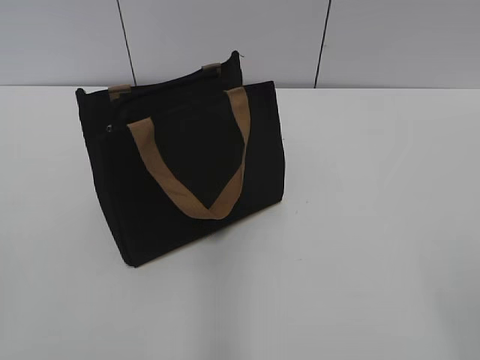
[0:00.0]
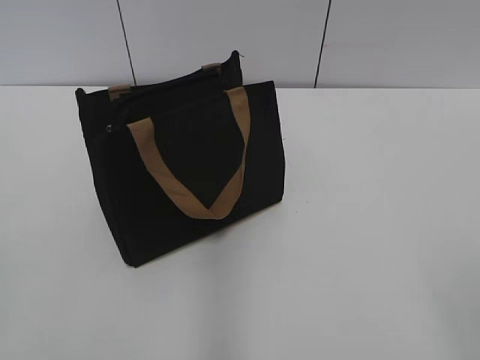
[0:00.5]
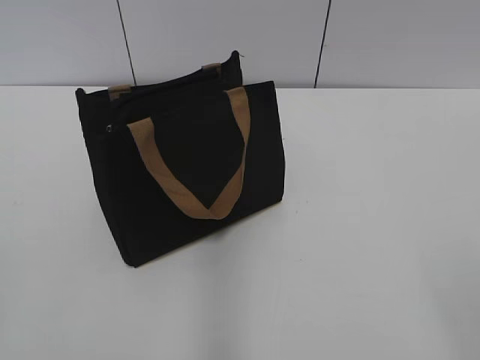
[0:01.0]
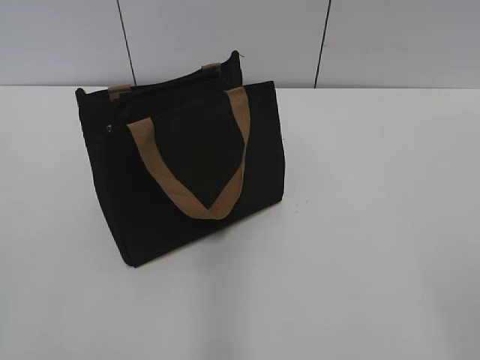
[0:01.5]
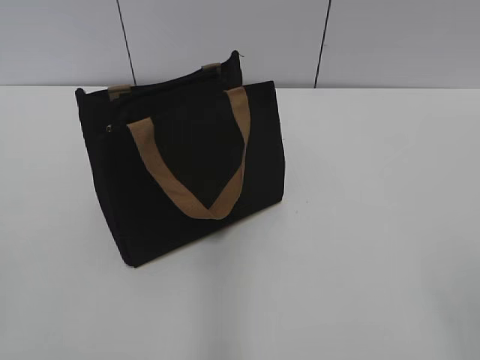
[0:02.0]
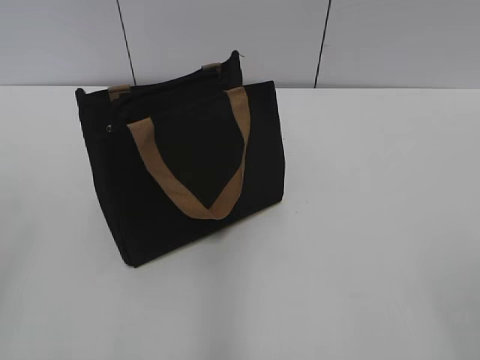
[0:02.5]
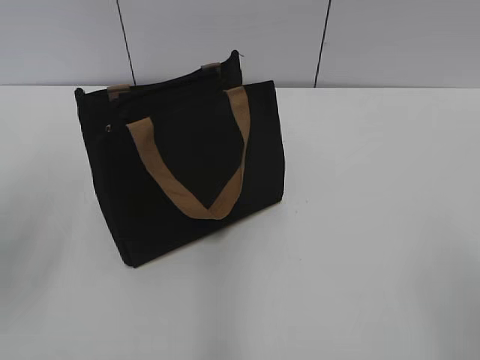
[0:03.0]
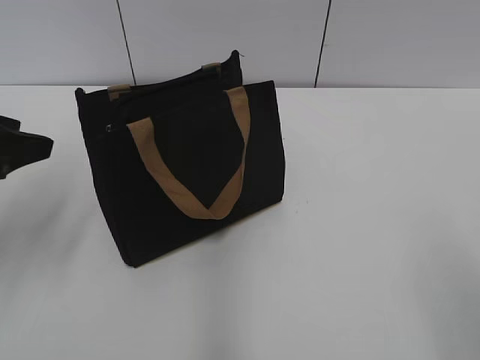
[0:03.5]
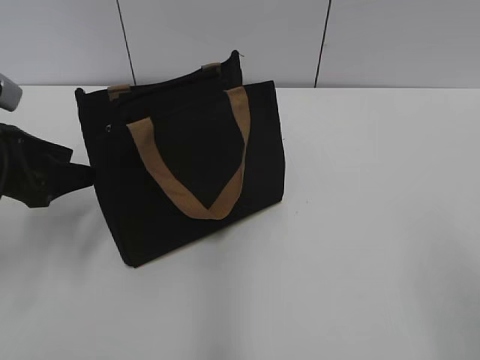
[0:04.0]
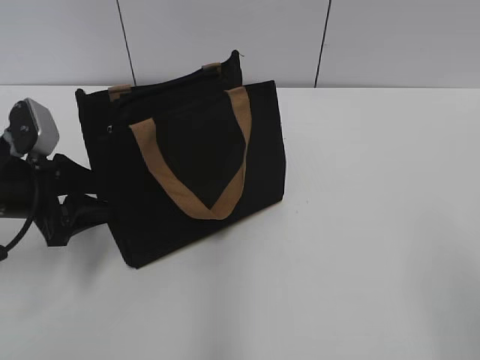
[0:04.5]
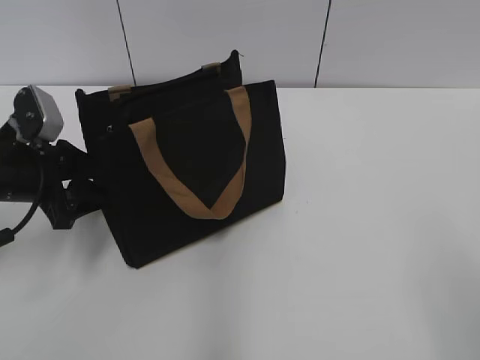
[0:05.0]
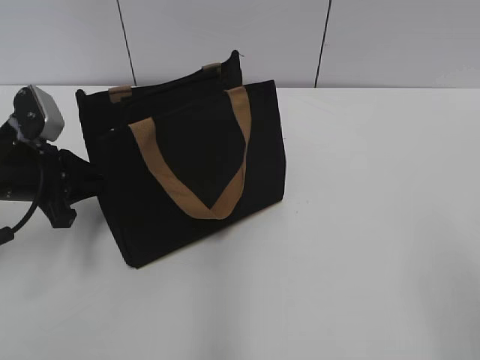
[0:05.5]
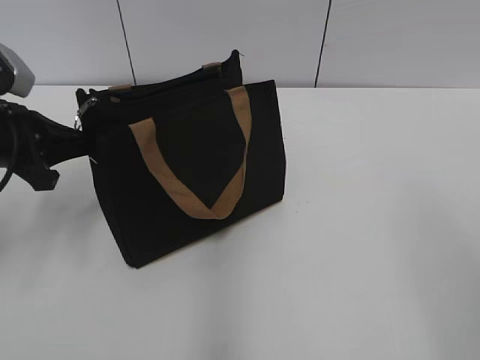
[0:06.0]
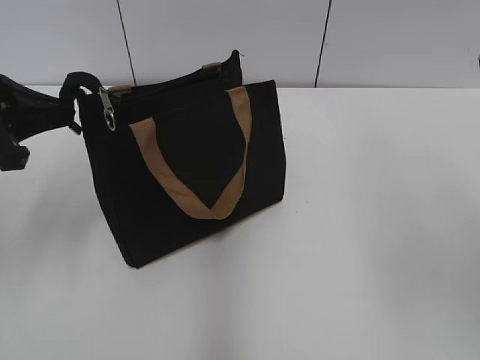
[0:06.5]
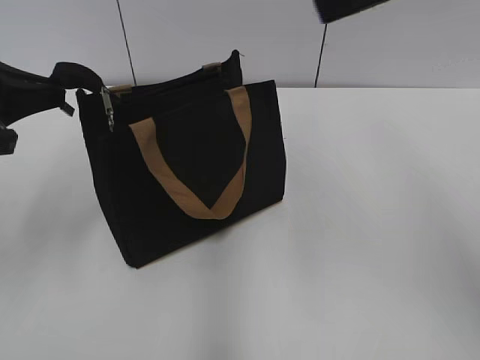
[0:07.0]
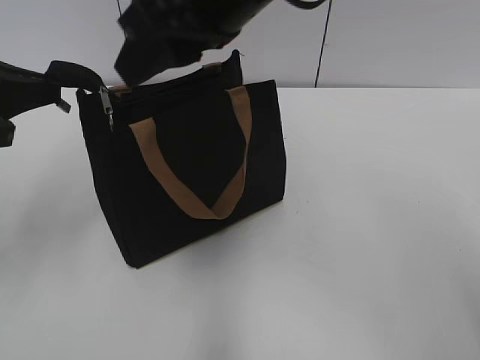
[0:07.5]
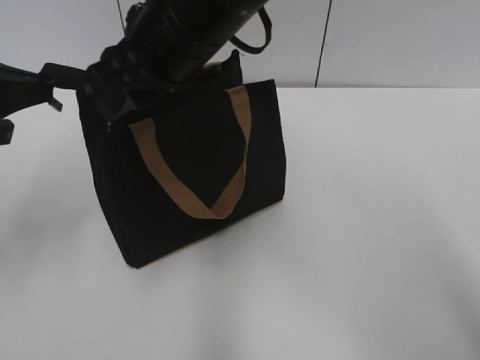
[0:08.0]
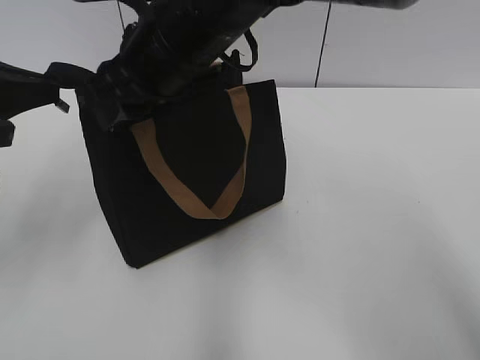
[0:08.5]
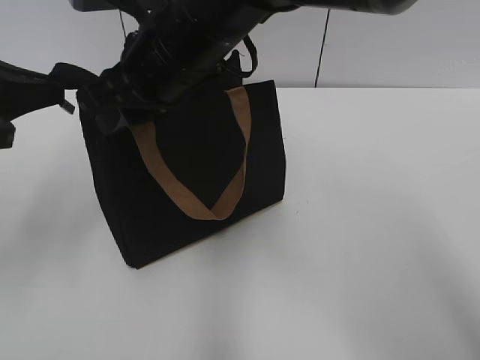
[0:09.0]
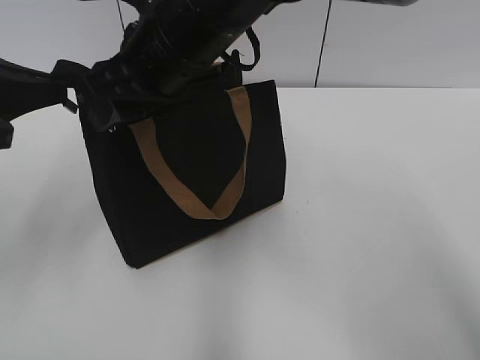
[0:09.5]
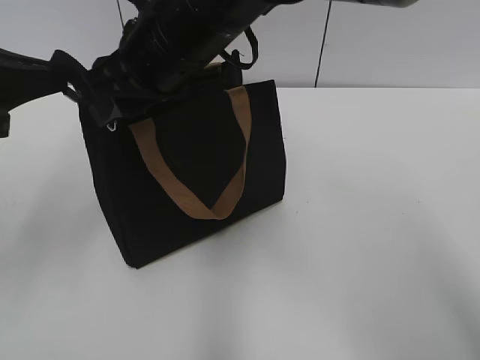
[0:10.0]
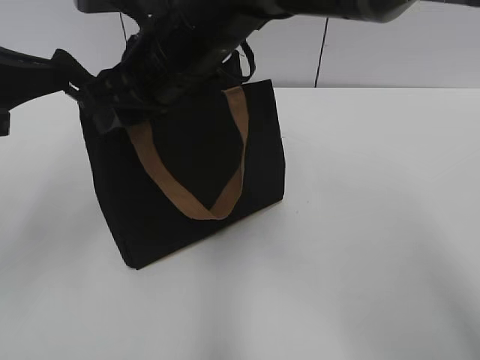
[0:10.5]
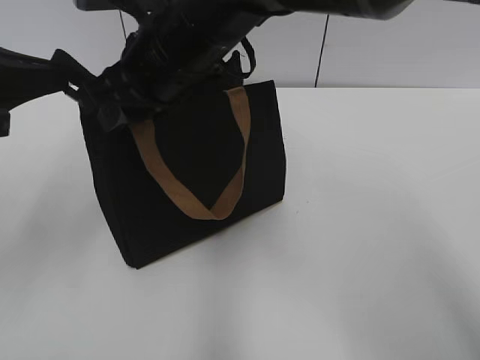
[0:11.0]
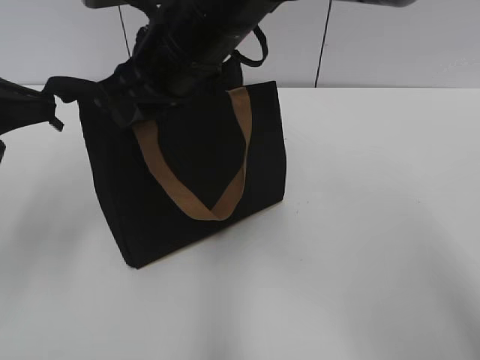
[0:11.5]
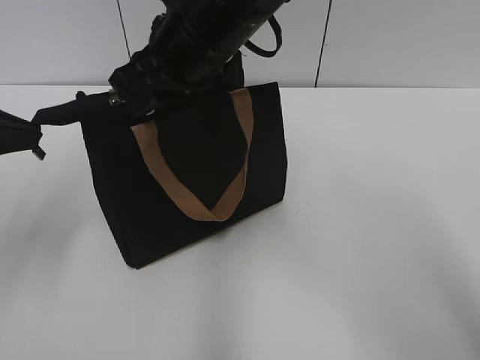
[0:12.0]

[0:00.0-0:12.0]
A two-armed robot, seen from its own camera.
0:02.0 to 0:04.0: The left gripper heads forward, covering some 25 cm.
0:04.0 to 0:06.0: The left gripper closes up.
0:06.0 to 0:08.0: The right gripper shifts roughly 40 cm to the left and forward, and closes its fingers. Meanwhile the left gripper is displaced upward by roughly 10 cm.
0:08.0 to 0:10.0: There are only small adjustments of the grippers.
0:10.0 to 0:12.0: The right gripper closes up.

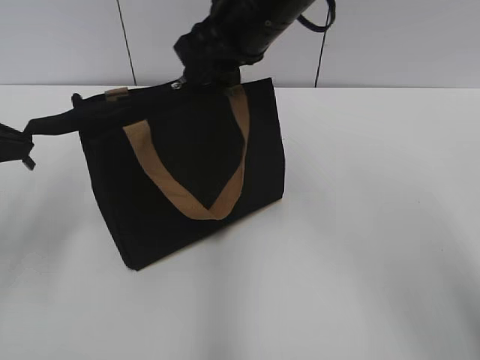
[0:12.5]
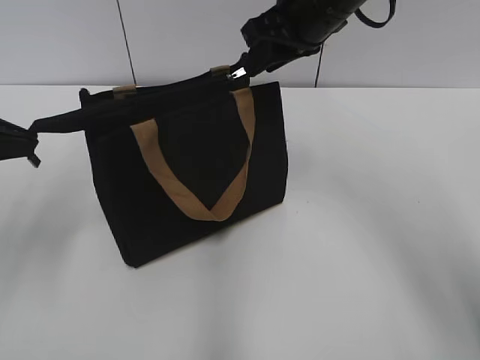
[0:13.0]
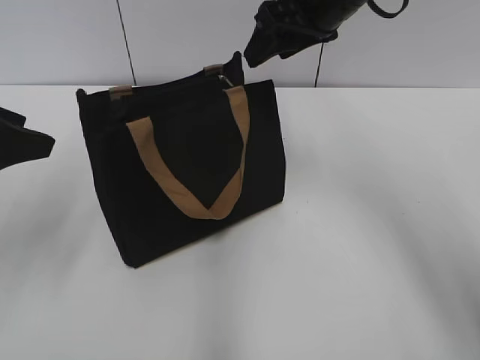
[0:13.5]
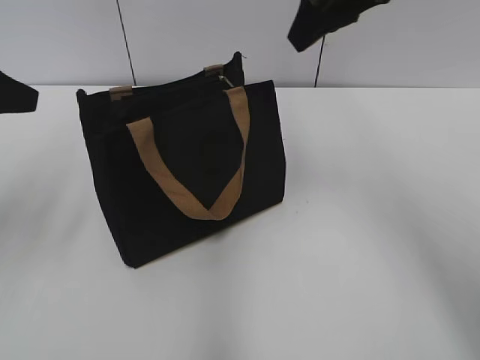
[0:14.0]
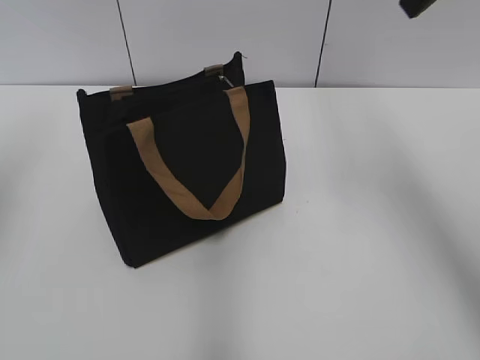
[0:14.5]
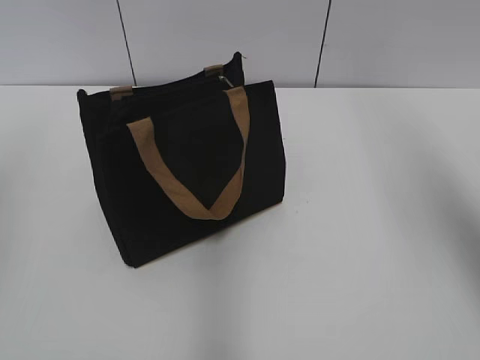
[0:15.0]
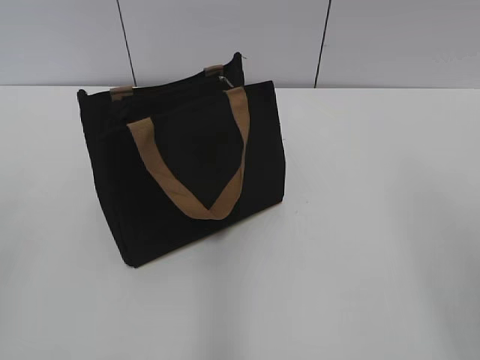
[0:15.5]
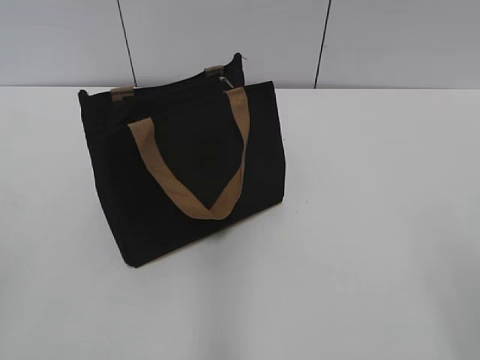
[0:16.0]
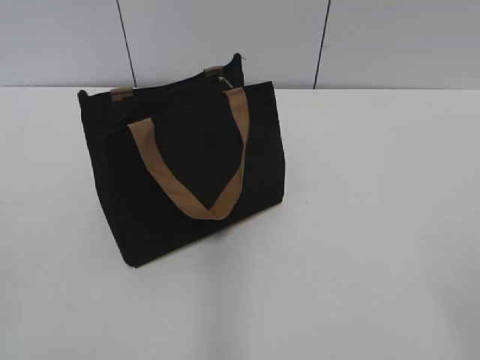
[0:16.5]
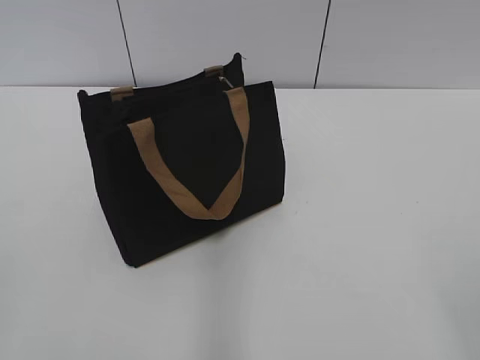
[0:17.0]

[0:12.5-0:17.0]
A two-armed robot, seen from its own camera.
0:12.5 to 0:14.5: The left gripper travels upward by some 10 cm, and opens up. The right gripper heads to the right and upward, covering some 20 cm, and opens its fingers.
0:14.5 to 0:17.0: Both grippers move backward, about 30 cm.

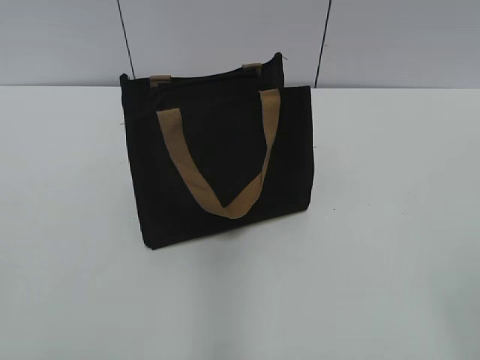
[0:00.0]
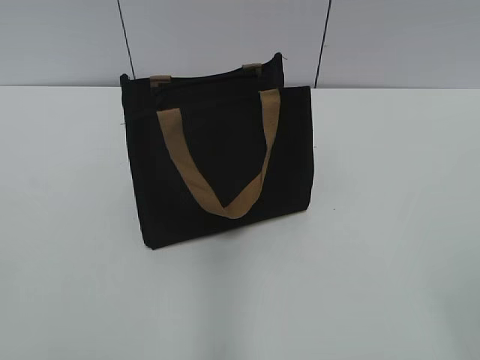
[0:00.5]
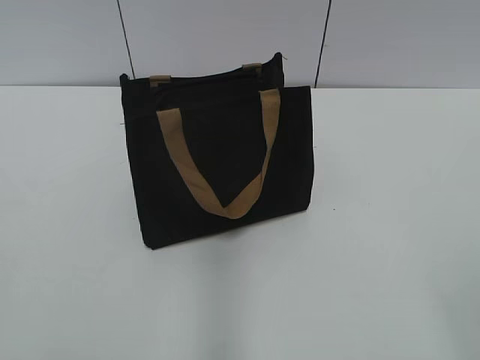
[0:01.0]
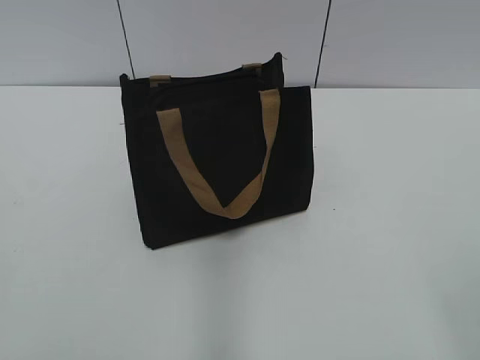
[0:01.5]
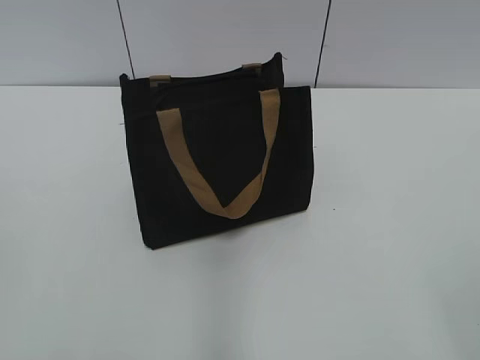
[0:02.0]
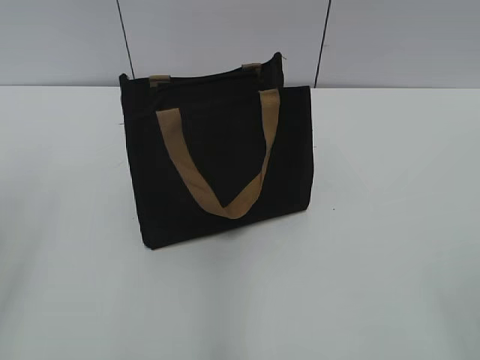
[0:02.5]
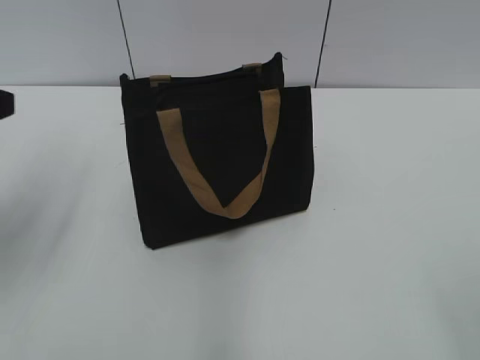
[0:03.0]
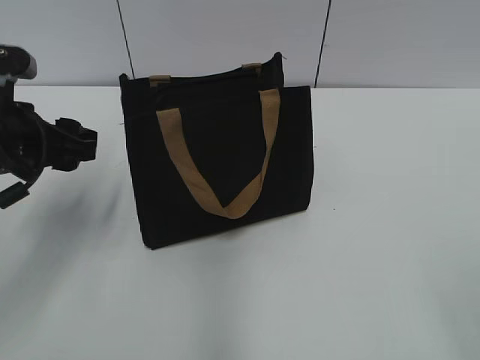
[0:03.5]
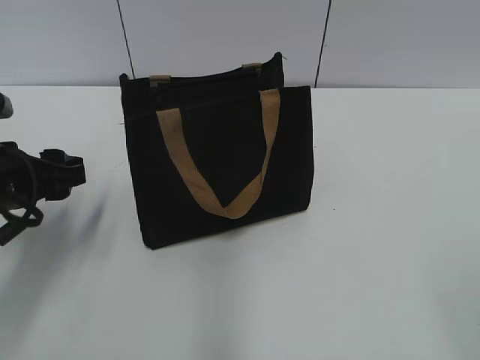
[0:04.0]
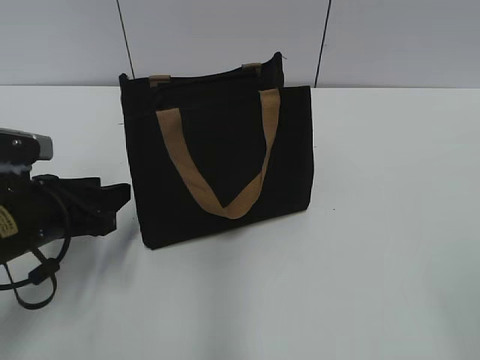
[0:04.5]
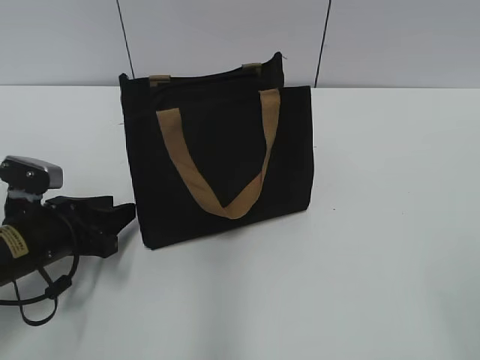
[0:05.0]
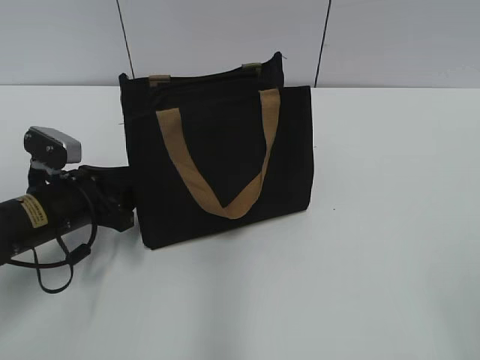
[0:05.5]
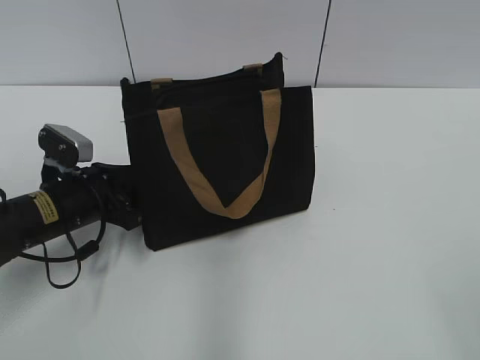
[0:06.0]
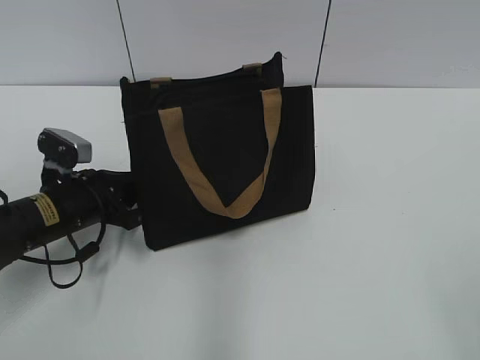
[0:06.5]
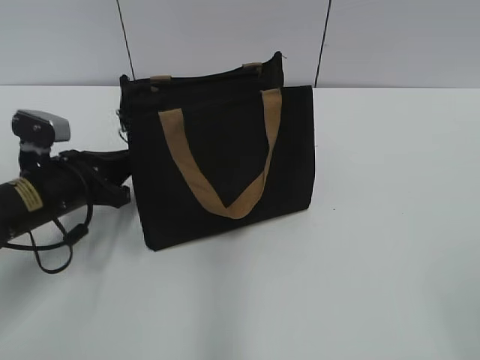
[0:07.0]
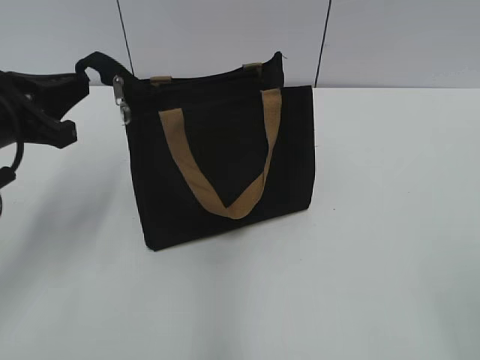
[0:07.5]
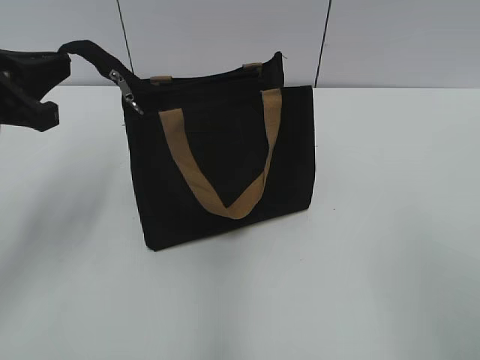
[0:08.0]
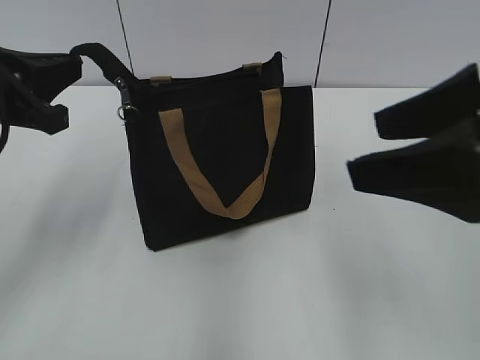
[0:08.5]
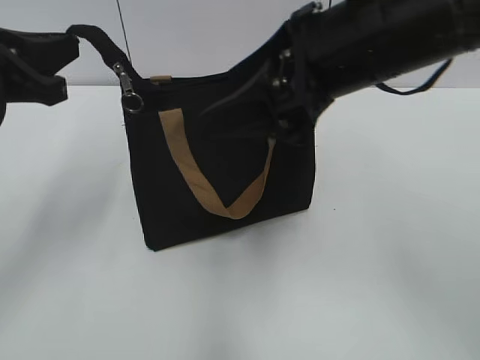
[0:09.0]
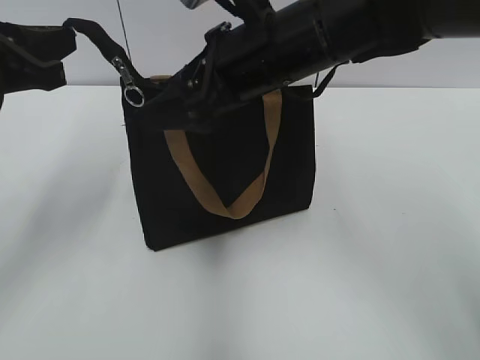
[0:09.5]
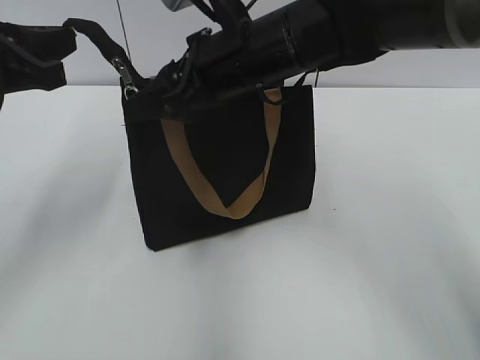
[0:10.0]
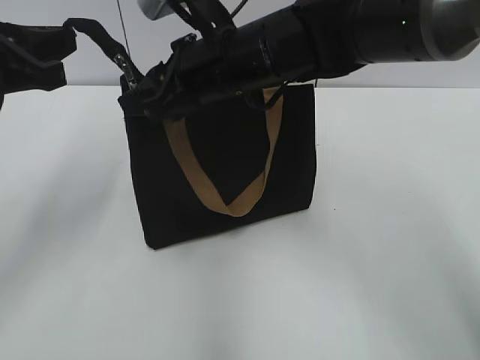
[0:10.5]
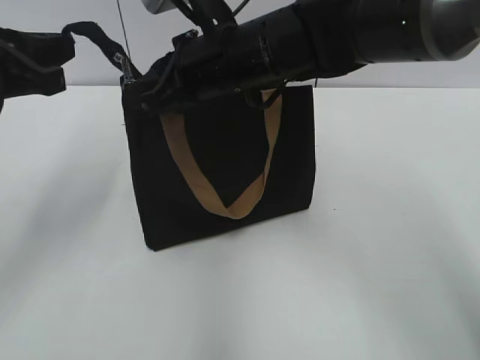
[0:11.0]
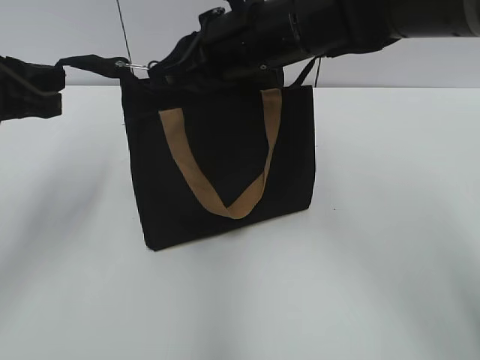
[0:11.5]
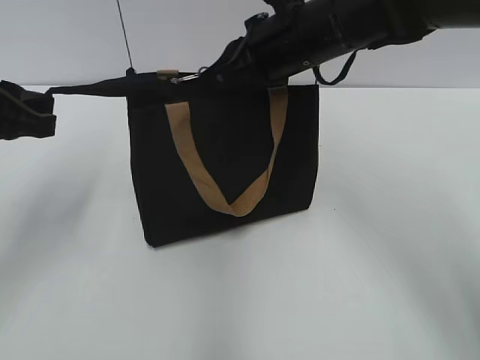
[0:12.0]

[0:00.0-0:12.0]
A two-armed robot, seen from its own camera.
0:02.0 to 0:04.0: The left gripper moves forward and downward, roughly 25 cm.
0:04.0 to 0:06.0: The left gripper shifts about 10 cm downward.
0:06.0 to 0:08.0: The left gripper goes some 15 cm upward, and closes its fingers.
0:08.0 to 0:10.0: The right gripper is displaced forward and to the left by about 35 cm, and closes.
0:10.0 to 0:12.0: The right gripper goes approximately 5 cm to the right, and closes its fingers.
